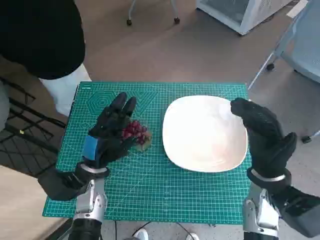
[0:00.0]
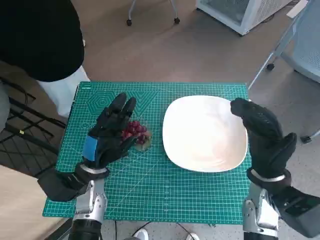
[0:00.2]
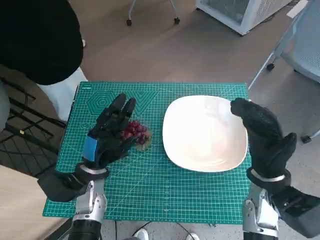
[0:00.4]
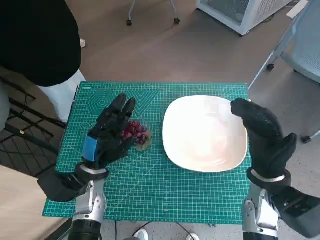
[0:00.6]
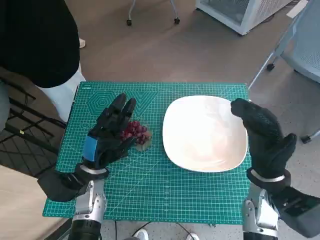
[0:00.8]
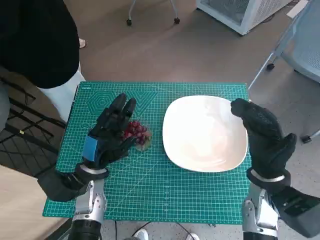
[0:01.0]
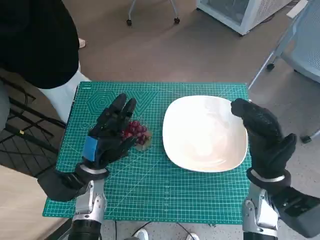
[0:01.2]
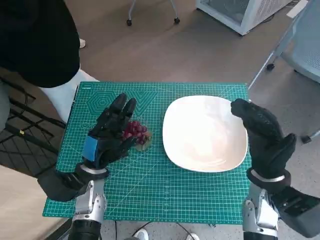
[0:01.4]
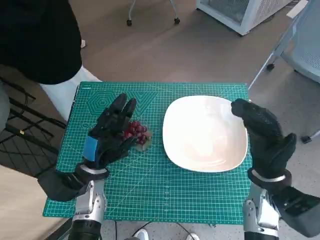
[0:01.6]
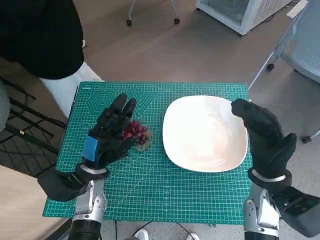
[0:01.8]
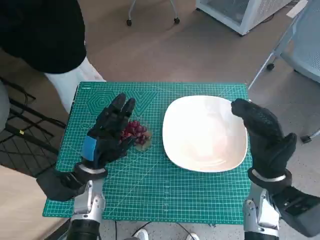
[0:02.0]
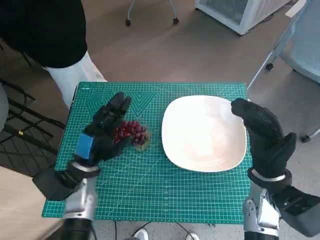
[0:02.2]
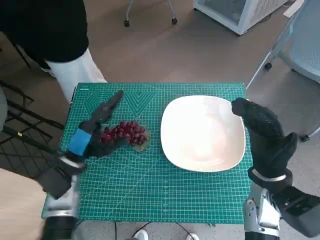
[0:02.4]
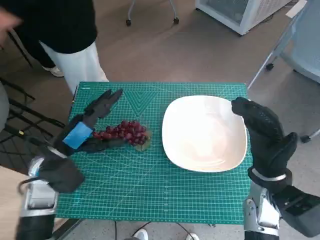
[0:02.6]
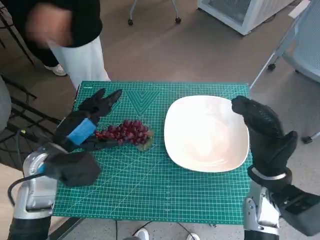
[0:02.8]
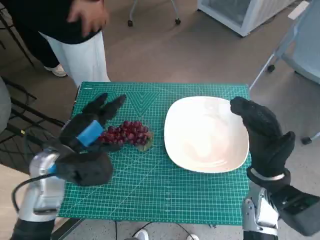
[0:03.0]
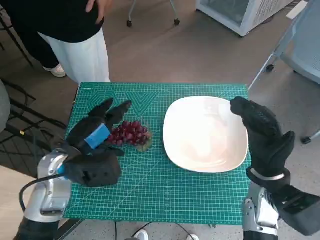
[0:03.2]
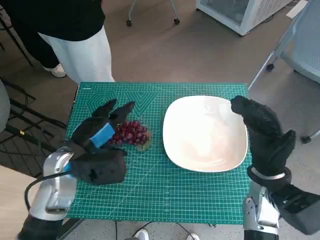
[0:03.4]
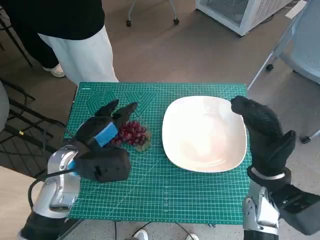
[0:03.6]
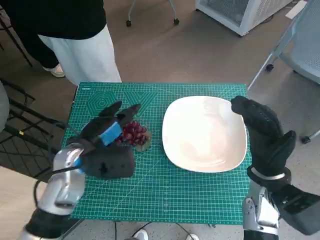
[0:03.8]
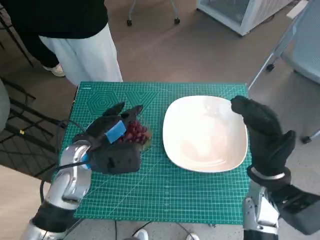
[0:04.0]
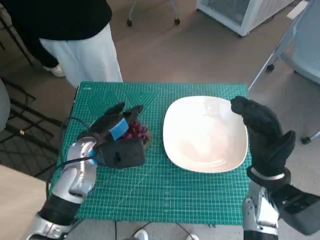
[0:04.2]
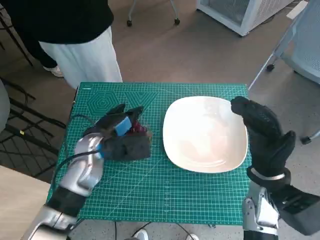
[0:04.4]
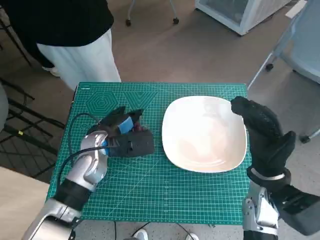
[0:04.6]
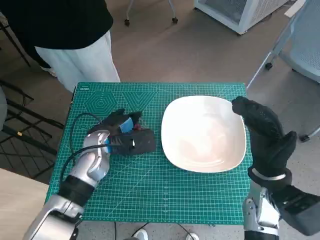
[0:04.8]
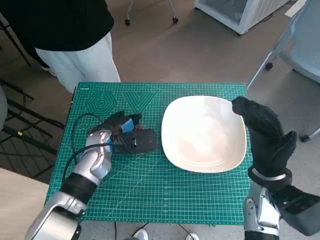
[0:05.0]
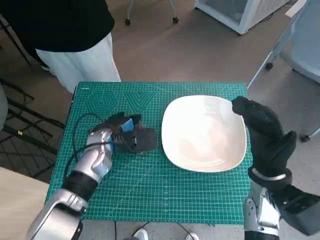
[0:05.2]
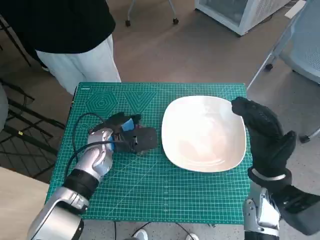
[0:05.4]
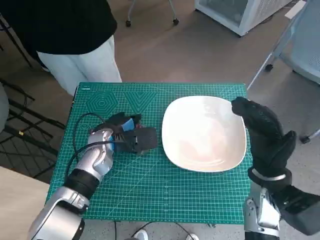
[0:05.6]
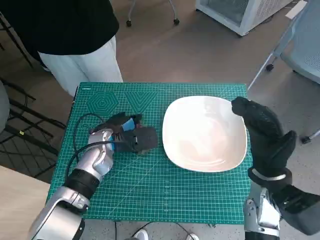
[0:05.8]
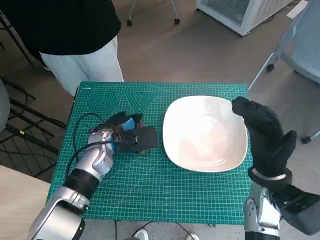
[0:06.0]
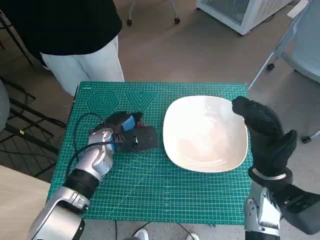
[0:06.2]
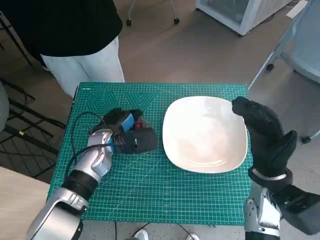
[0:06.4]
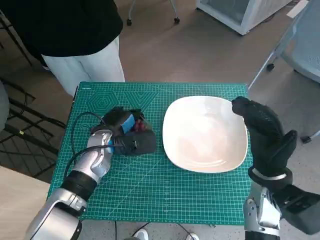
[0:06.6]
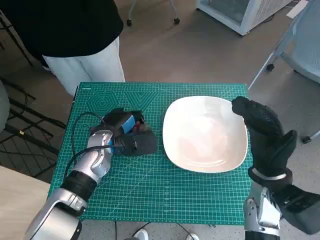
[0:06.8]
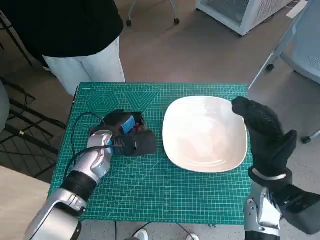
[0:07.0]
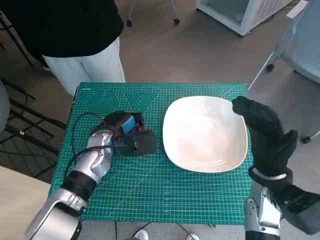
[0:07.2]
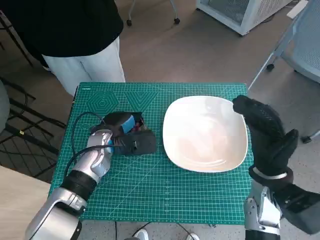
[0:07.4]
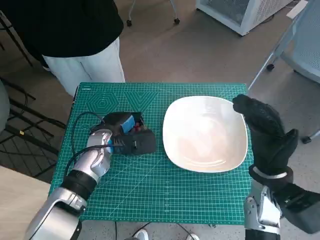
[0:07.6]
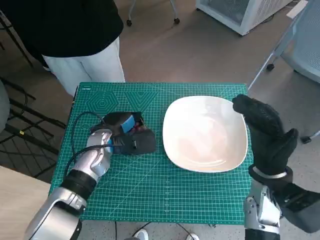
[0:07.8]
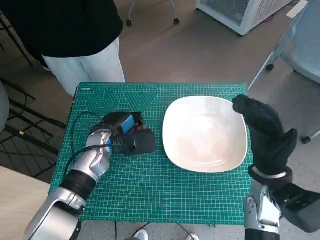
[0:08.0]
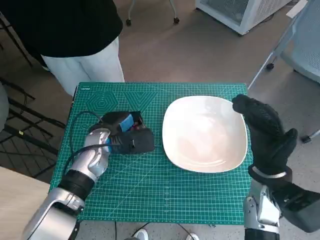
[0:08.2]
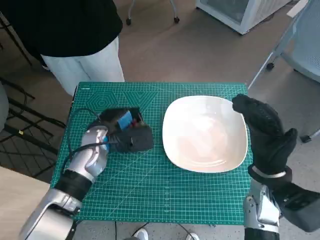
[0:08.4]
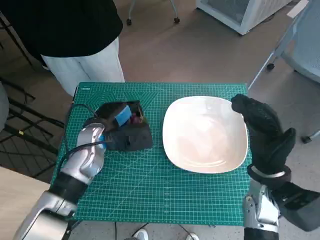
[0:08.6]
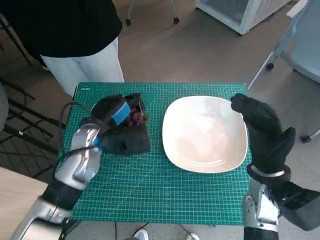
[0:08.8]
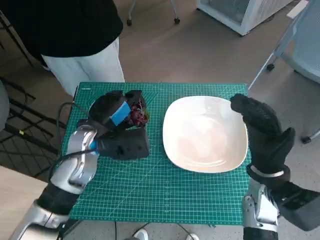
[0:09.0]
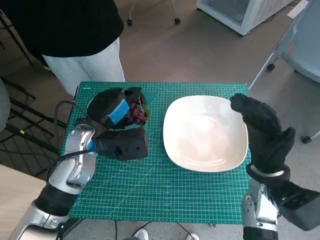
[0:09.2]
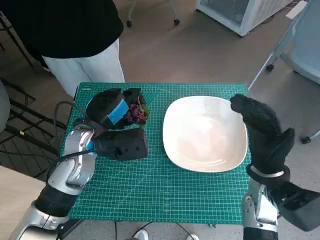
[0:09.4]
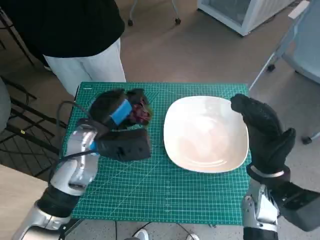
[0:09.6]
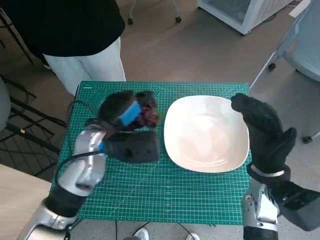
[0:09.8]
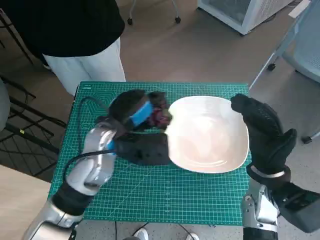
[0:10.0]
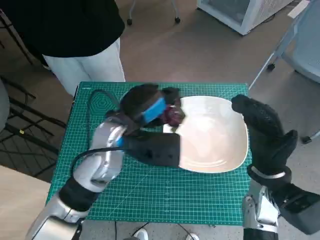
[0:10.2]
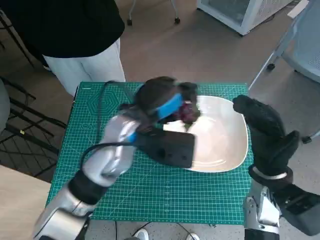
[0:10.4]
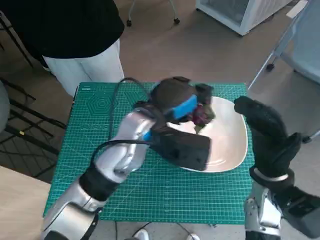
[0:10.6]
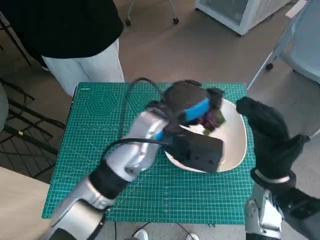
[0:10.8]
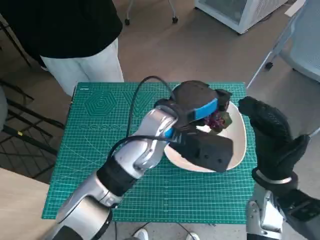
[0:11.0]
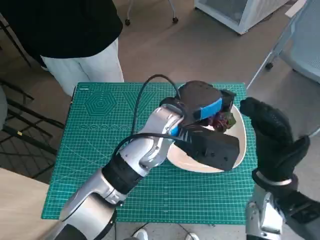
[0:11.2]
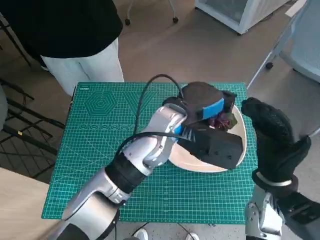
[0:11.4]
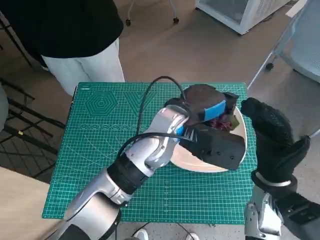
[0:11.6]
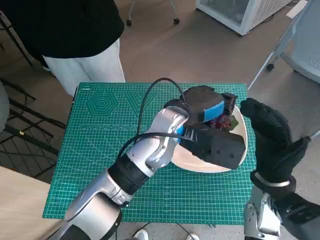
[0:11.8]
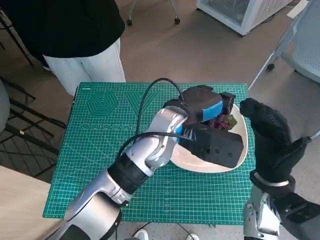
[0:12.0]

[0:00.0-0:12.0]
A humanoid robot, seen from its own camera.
Task of the whole recording: Pick up the grapes and put them on the plate.
Step, 0.0 to 5.6 s: Grasp the grapes with left hand.
1.6 to 3.0 s: The left hand travels upward by about 10 cm.
3.0 to 4.4 s: The left hand goes roughly 5 cm to the right and forward.
4.4 to 7.6 s: The hands move only a little.
7.6 to 9.0 s: The left hand shifts roughly 5 cm upward.
9.0 to 10.4 s: The left hand is displaced to the right by about 10 cm.
10.4 to 12.0 s: The left hand is displaced to the right by about 10 cm.

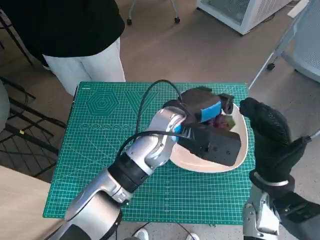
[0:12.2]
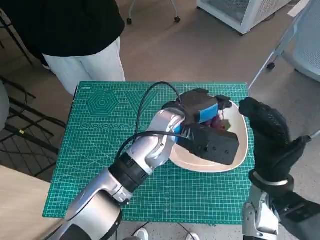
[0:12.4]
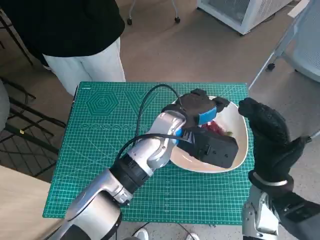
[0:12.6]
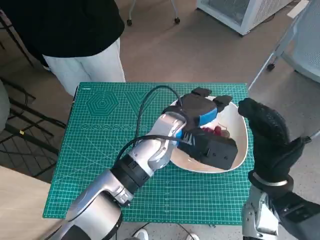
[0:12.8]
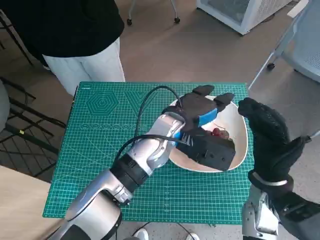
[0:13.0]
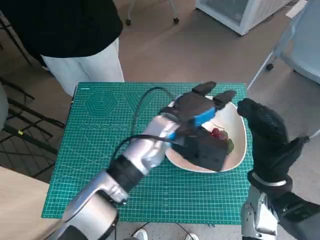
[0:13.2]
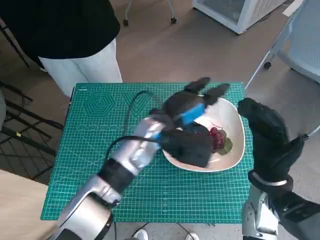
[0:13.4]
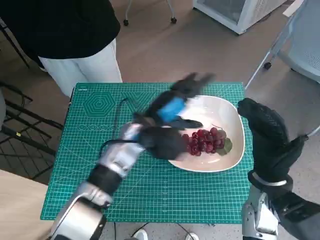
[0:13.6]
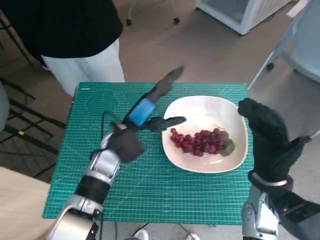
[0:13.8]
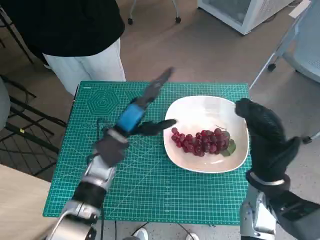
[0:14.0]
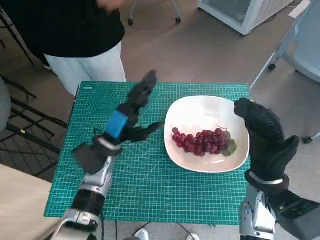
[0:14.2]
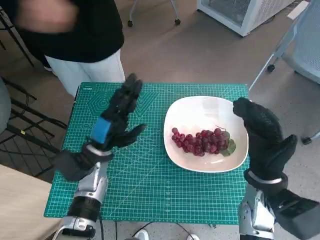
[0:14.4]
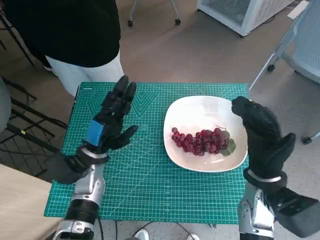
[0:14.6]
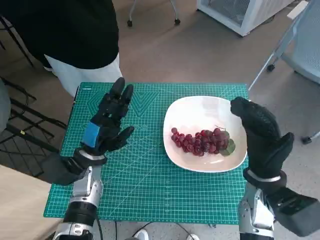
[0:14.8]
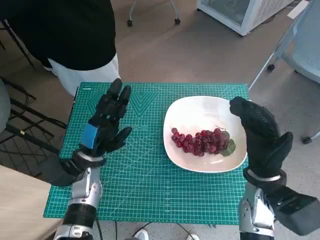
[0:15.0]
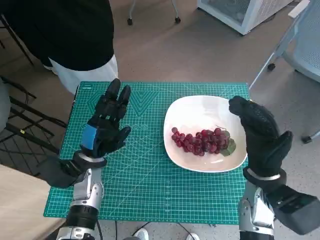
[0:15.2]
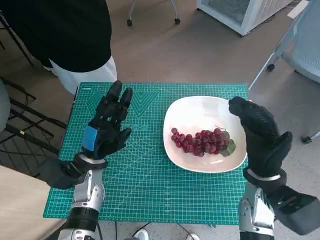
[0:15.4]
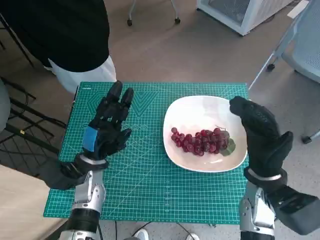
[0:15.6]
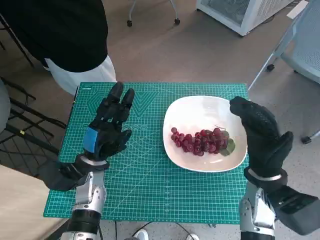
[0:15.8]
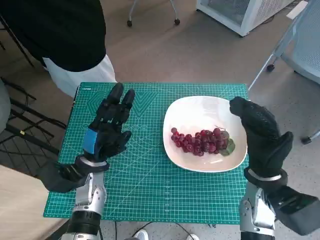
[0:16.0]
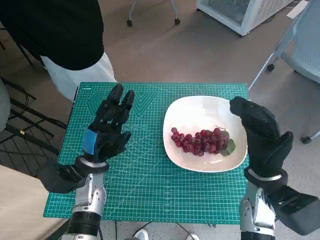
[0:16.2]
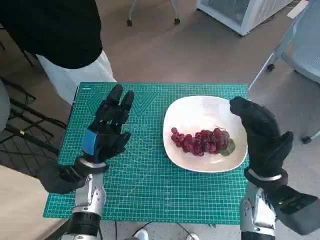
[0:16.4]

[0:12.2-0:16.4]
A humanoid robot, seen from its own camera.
Task of the whole recording: Pick up the grapes and put them on the plate.
12.2 to 13.6 s: The left hand shifts about 5 cm to the left.
13.6 to 15.0 s: The left hand goes roughly 15 cm to the left, downward and backward.
15.0 to 16.4 s: There are only small adjustments of the hands.

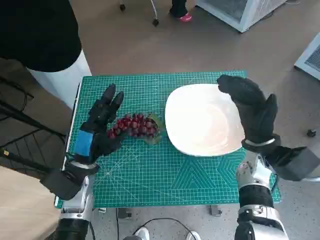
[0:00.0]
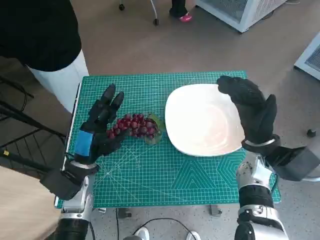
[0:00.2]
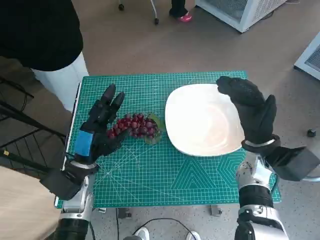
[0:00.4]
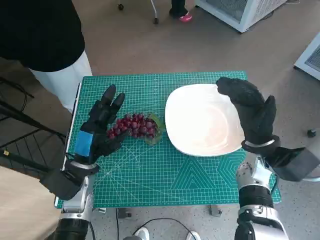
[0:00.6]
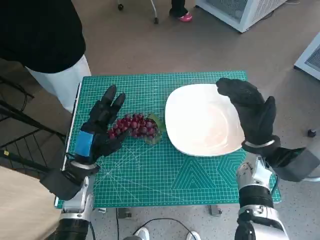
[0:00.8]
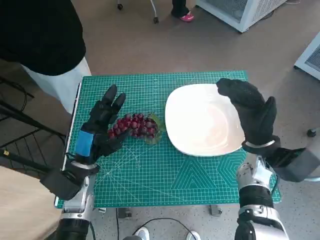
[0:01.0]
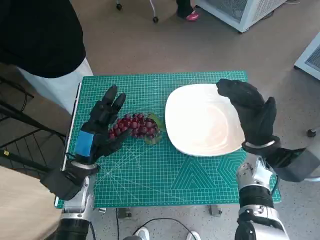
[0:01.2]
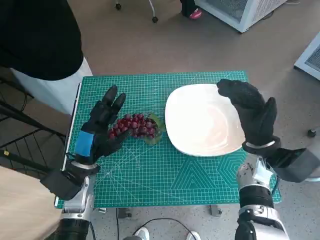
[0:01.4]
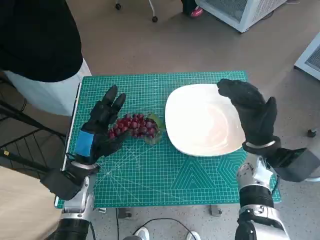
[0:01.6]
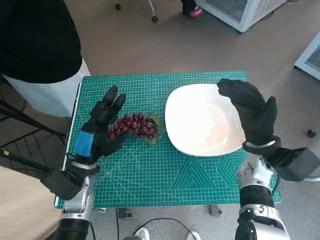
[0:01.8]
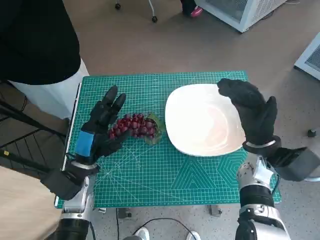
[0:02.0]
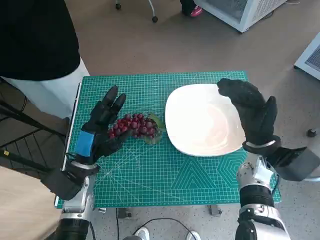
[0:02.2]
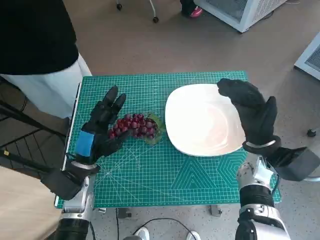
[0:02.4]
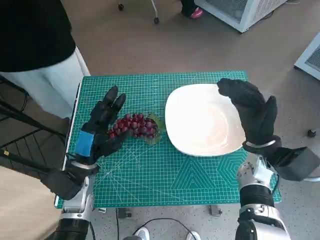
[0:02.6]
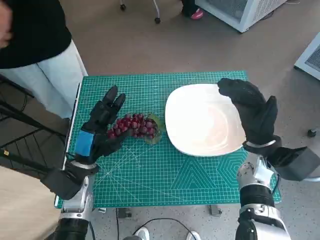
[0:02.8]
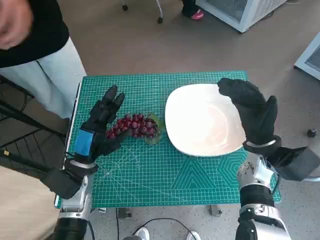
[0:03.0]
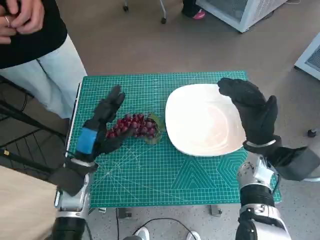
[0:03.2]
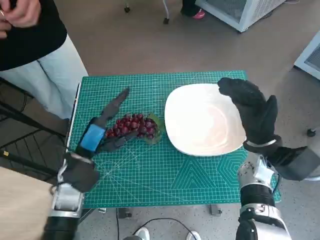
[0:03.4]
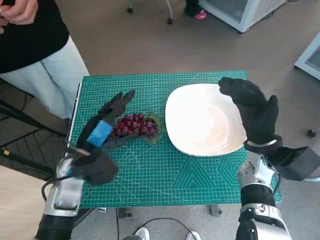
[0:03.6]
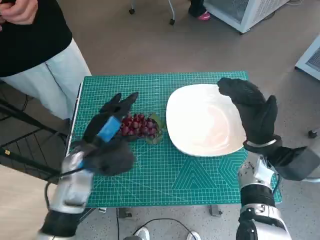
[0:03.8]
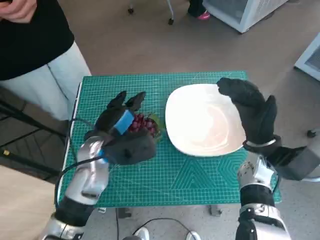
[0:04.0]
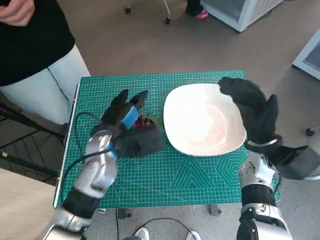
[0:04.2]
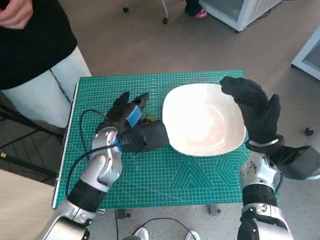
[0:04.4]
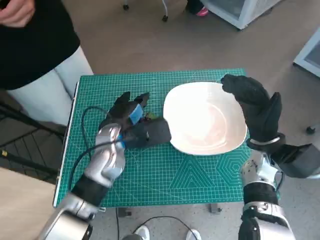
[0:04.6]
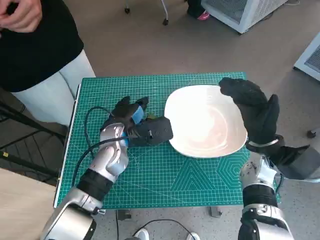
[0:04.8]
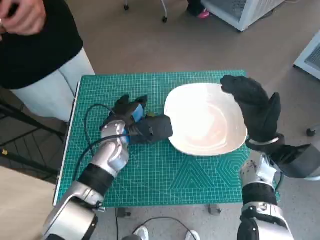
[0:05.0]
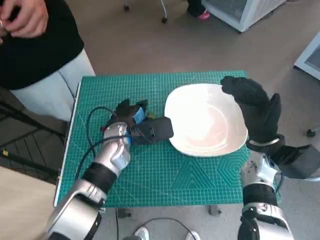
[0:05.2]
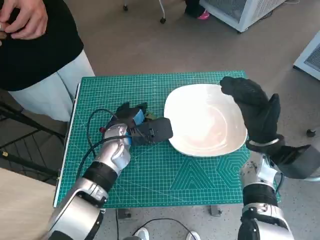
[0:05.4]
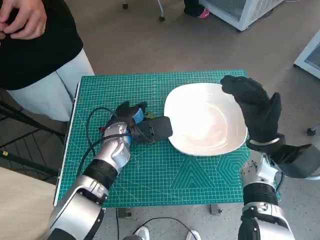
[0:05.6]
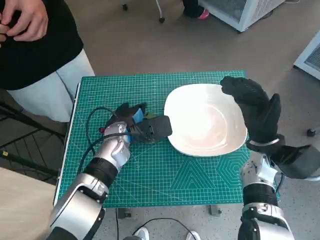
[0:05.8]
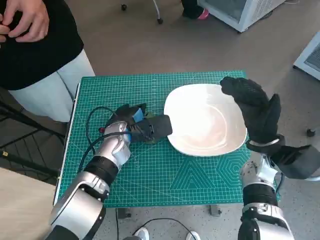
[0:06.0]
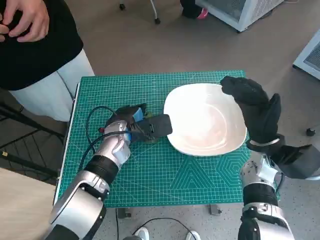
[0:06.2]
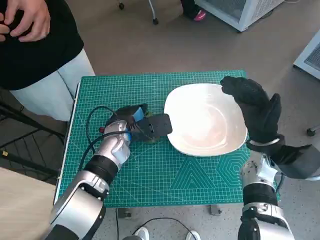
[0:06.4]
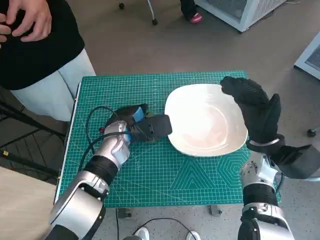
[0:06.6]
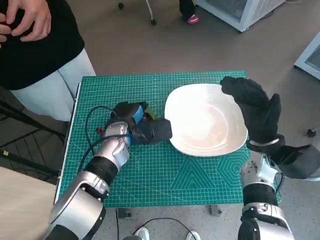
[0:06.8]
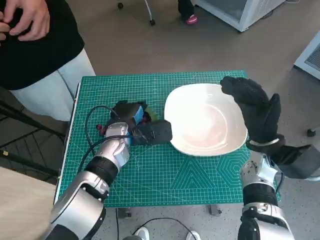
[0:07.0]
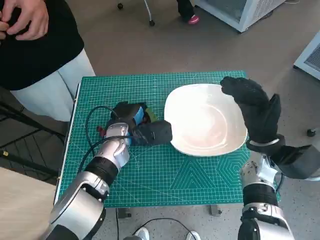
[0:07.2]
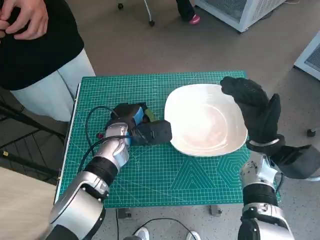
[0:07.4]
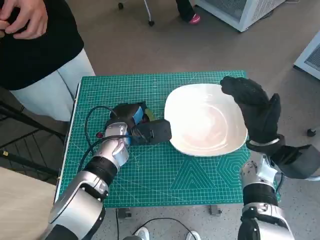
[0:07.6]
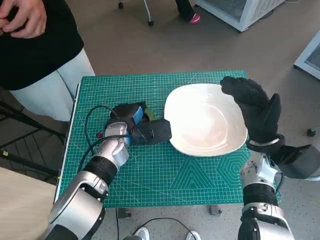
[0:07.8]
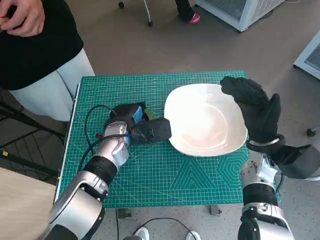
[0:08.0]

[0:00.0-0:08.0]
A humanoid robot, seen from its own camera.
Task of the whole recording: Pick up the grapes and put them on the plate.
Step, 0.0 to 7.6 s: Grasp the grapes with left hand.
1.6 to 3.2 s: The hands stay close to where they were, moving slightly.
3.2 to 4.8 s: The left hand is displaced to the right and forward by approximately 10 cm.
4.8 to 8.0 s: The hands move only a little.
